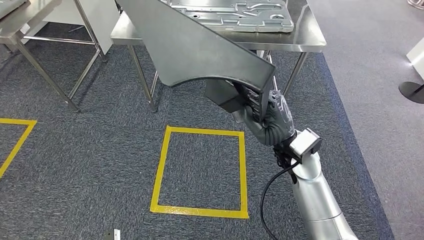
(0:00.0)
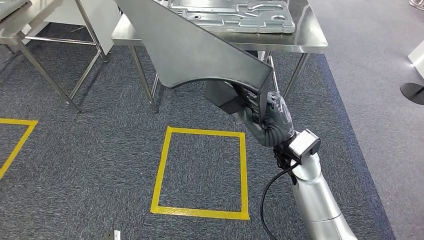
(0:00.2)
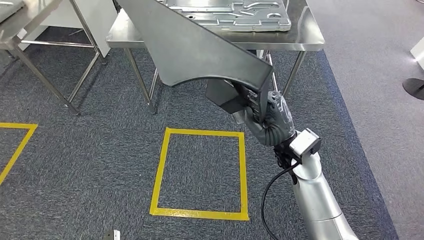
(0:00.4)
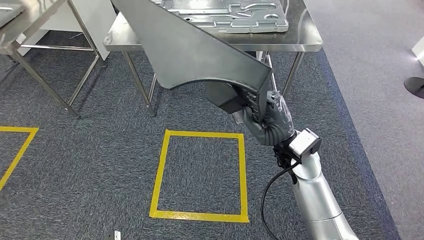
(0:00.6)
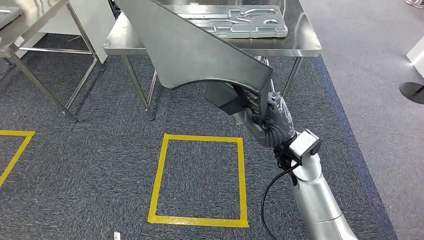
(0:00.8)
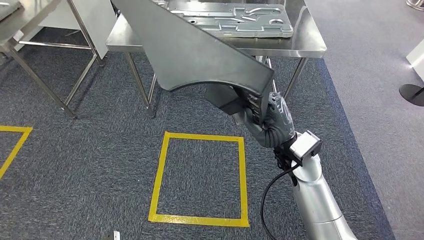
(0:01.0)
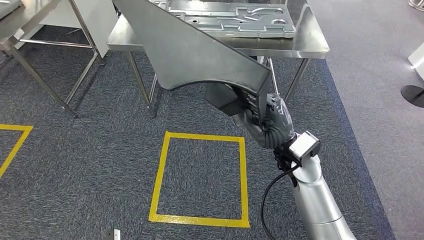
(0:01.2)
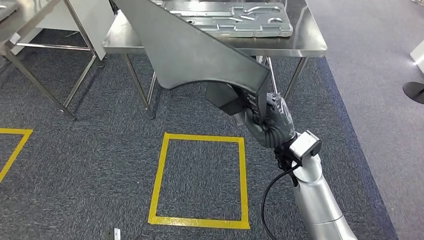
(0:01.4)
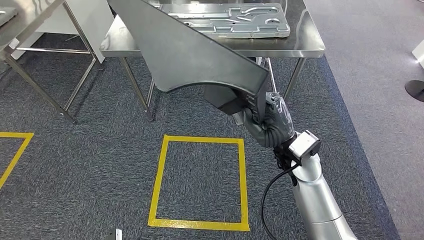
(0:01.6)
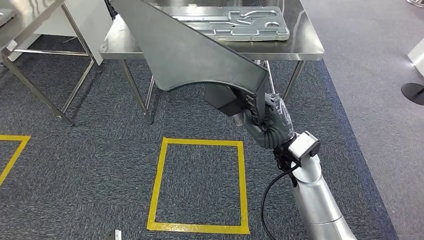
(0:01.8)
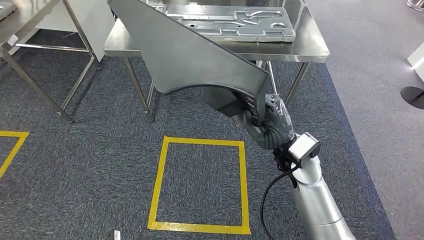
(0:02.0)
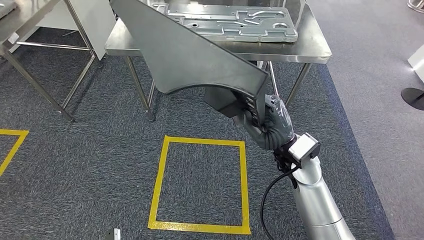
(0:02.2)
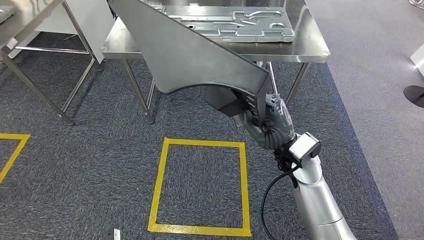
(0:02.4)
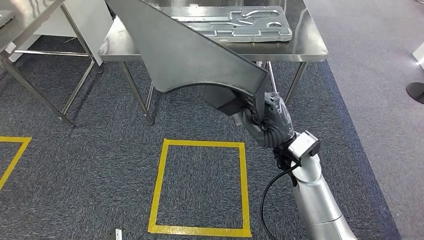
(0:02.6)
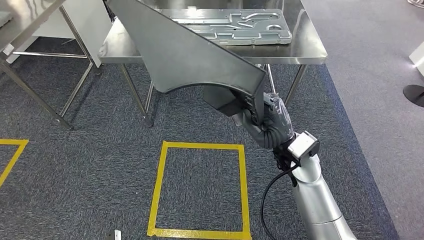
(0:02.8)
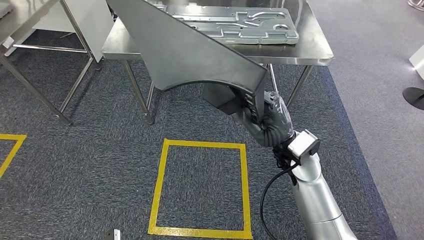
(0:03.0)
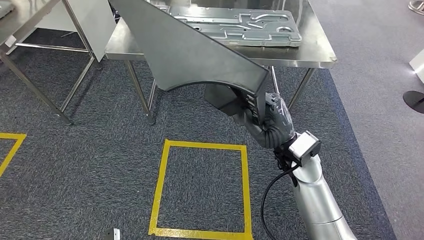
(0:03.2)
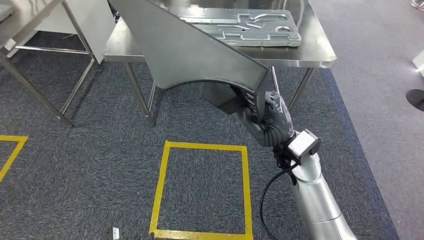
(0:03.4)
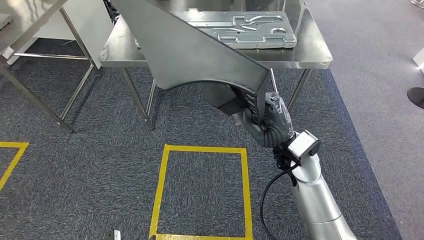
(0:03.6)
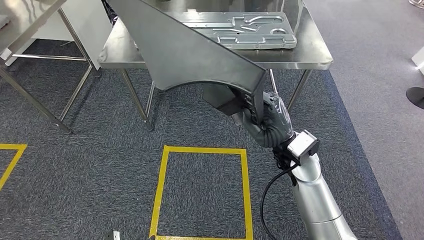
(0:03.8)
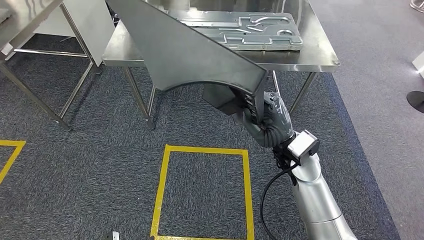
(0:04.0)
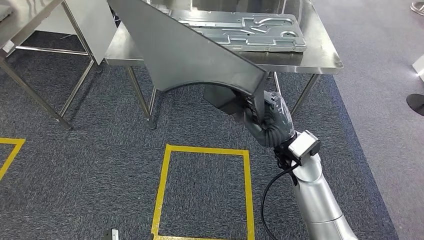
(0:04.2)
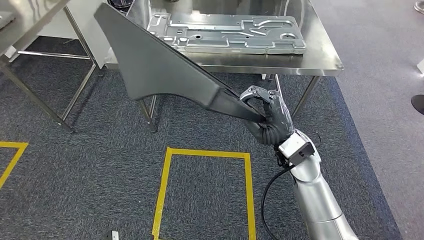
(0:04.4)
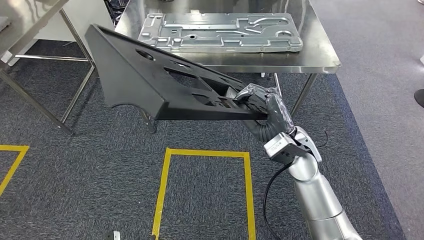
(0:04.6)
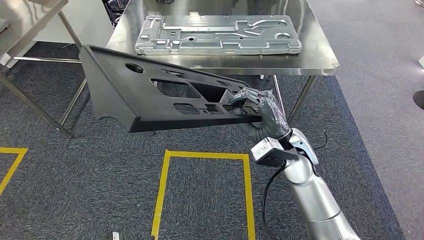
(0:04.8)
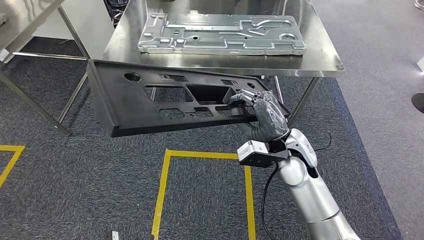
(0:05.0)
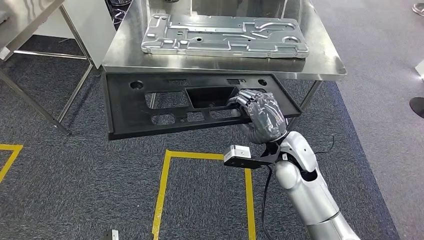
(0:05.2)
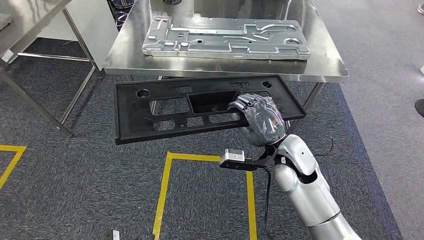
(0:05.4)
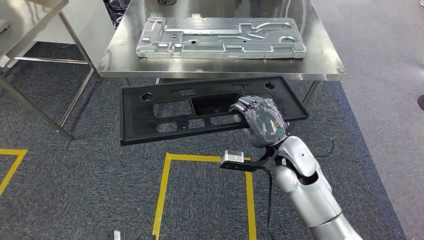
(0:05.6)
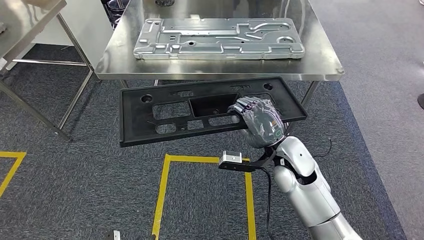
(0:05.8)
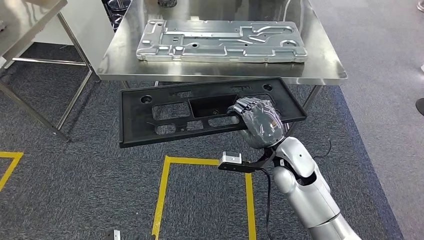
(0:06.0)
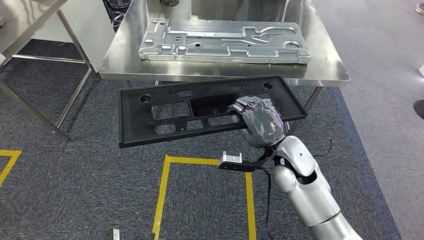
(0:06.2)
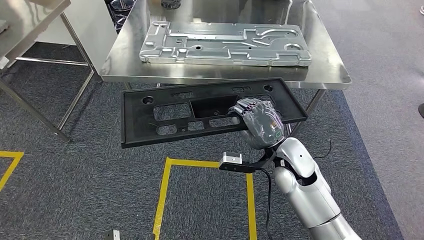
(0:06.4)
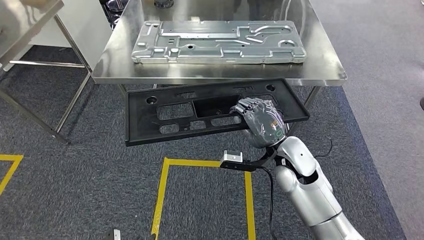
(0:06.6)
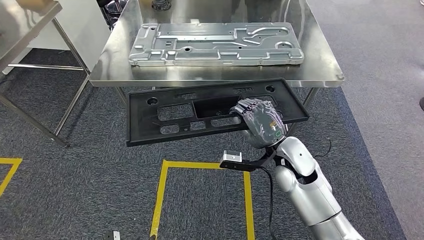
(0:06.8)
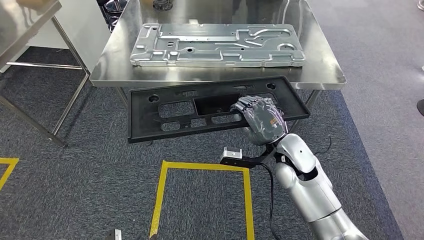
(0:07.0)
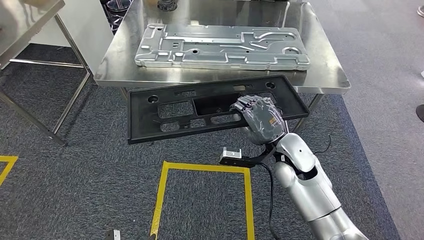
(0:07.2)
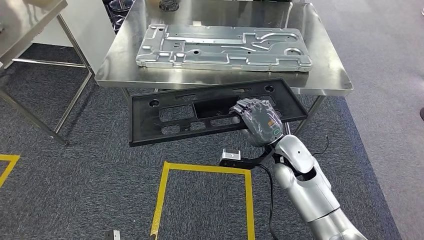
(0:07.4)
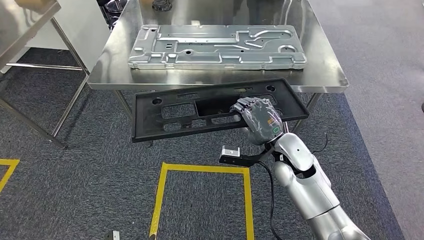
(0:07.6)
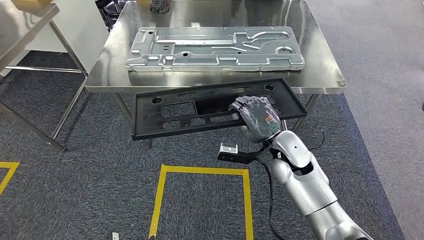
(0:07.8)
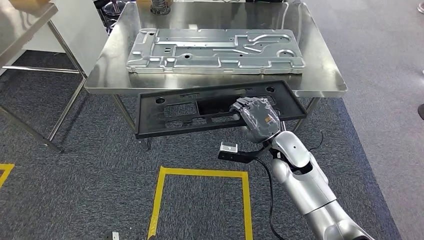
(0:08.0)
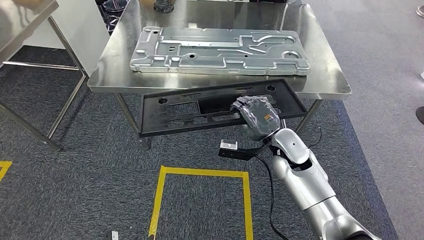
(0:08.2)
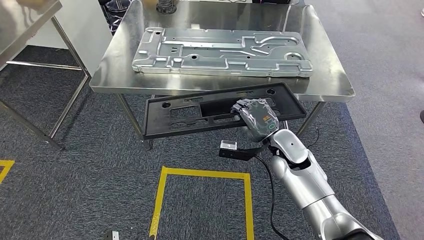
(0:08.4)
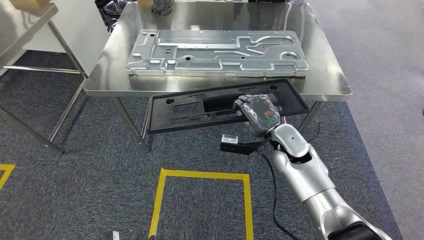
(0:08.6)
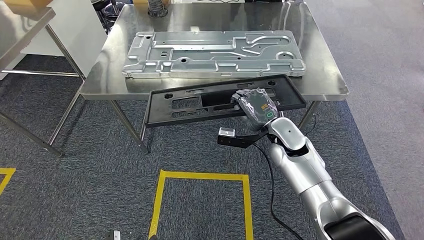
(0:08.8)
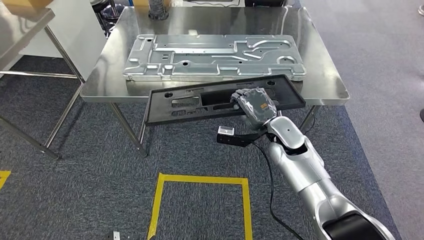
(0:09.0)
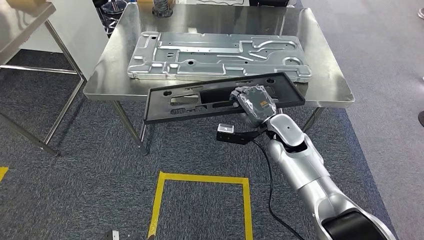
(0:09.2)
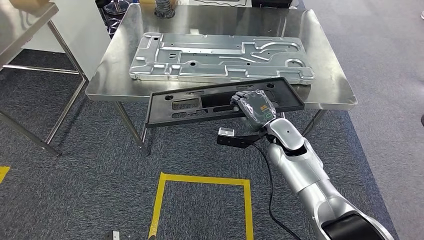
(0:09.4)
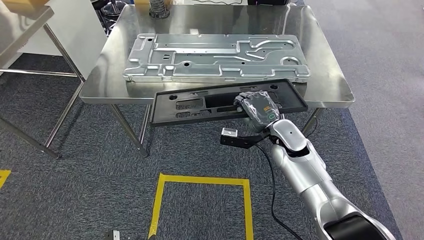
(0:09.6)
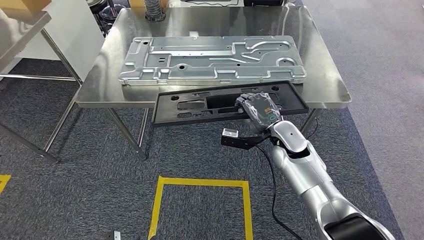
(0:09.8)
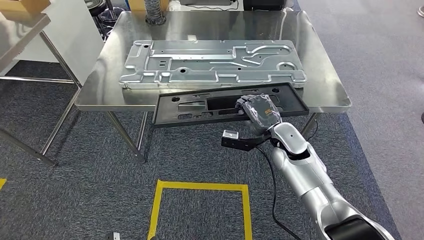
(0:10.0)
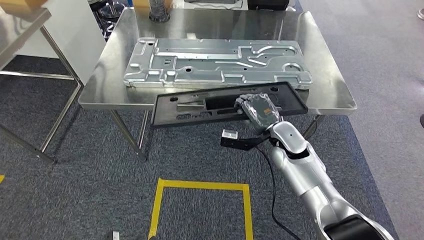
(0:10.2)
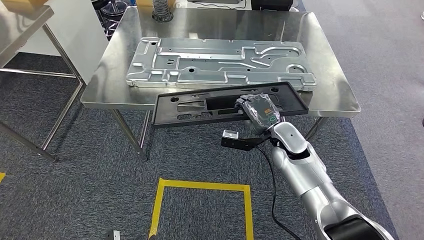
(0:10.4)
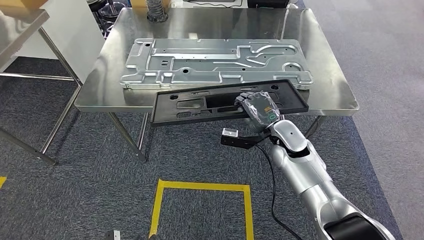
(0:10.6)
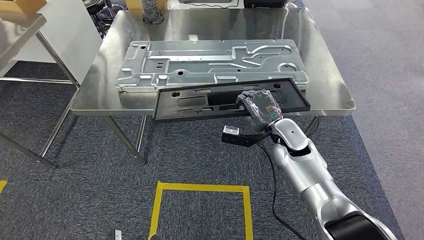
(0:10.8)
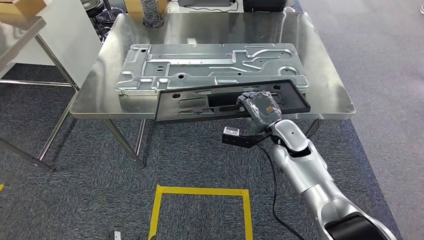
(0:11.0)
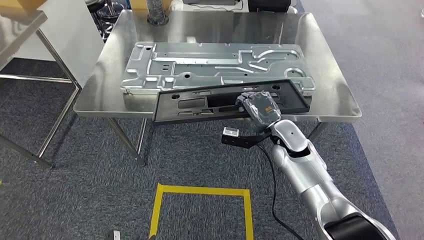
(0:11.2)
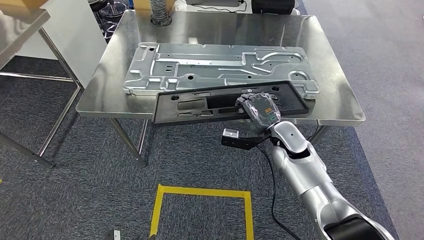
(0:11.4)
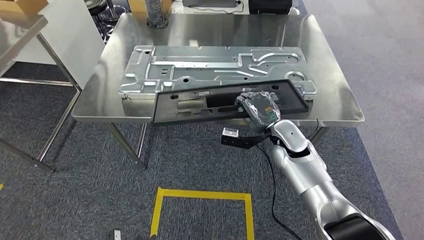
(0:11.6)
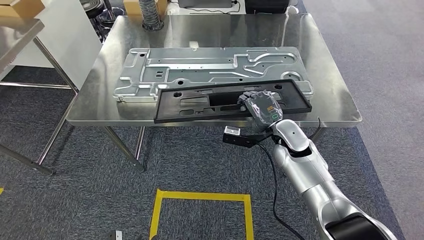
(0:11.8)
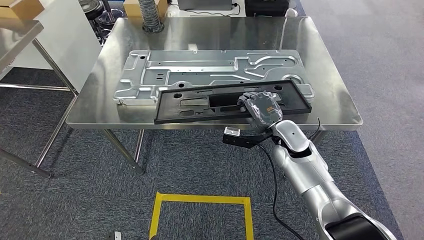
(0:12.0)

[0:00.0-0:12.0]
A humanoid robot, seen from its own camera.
Step, 0:00.0 to 0:08.8: Move the small component to the workbench.
0:00.0 to 0:03.0: Both hands stay about where they are.

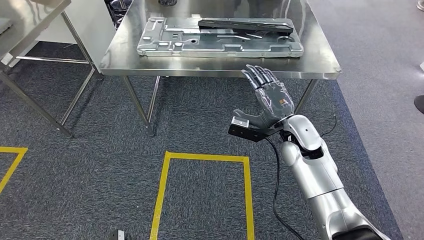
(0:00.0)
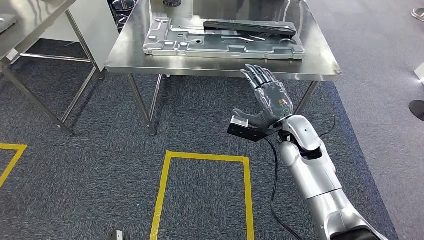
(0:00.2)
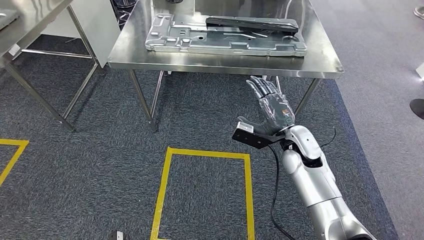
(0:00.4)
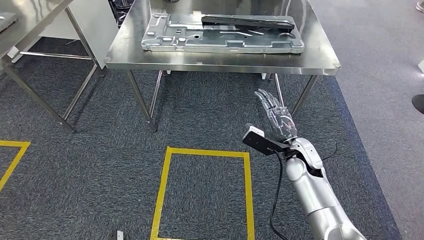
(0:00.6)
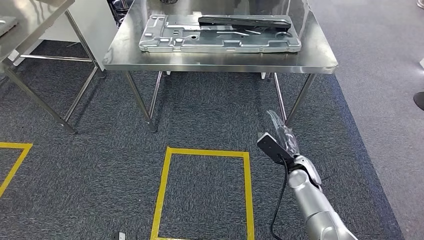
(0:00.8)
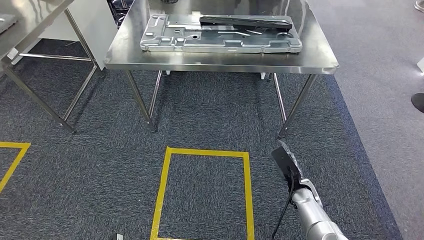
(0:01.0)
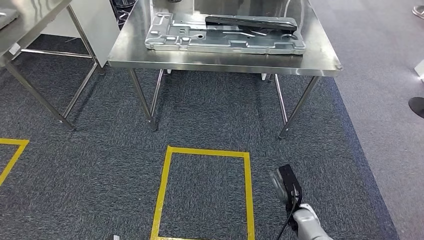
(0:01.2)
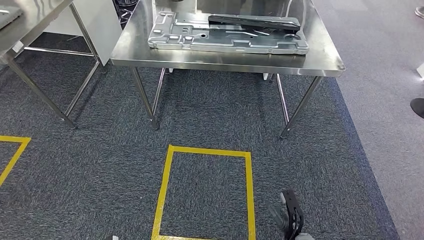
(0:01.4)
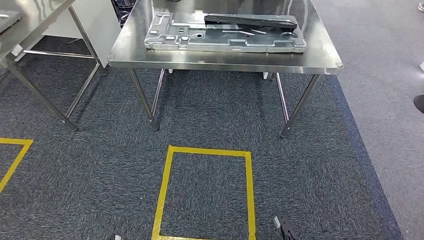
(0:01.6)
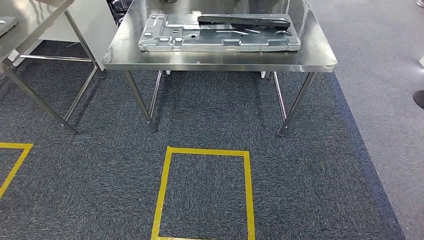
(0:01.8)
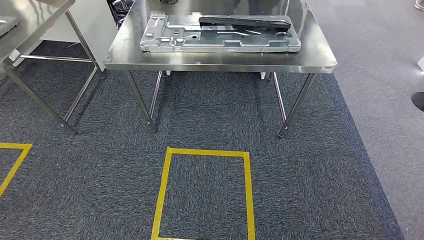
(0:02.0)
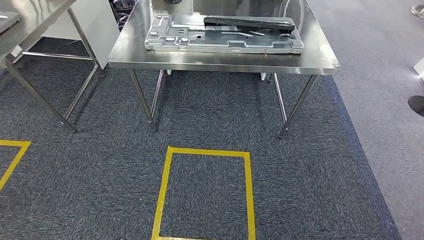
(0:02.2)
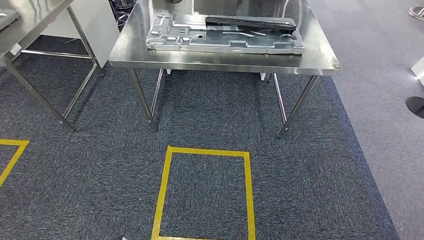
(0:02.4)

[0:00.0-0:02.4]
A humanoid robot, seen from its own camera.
Step, 0:00.0 to 0:02.4: Return to the initial position at the workbench.
0:01.2 to 0:02.4: The right hand moves backward, downward and to the left, roughly 25 cm.
